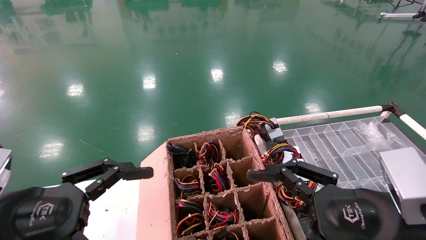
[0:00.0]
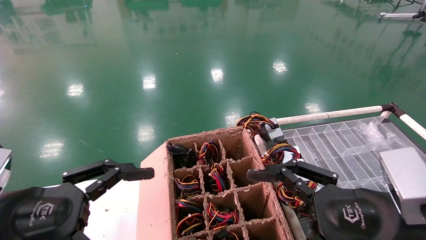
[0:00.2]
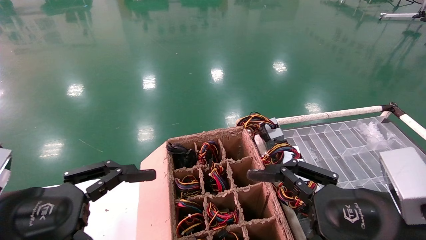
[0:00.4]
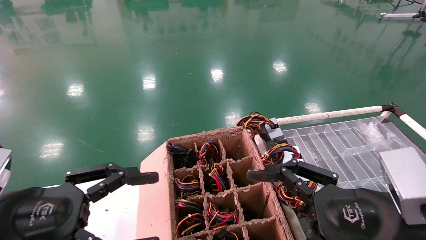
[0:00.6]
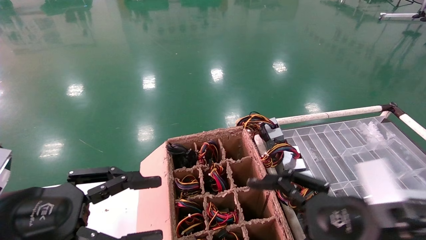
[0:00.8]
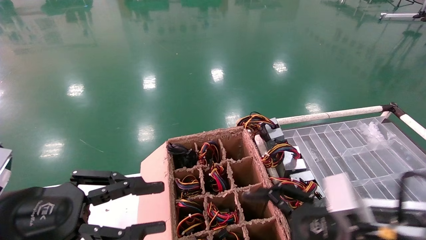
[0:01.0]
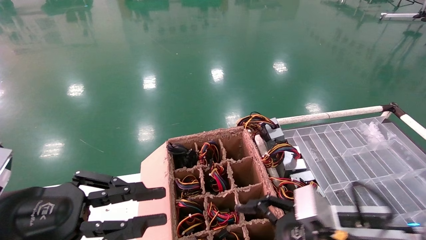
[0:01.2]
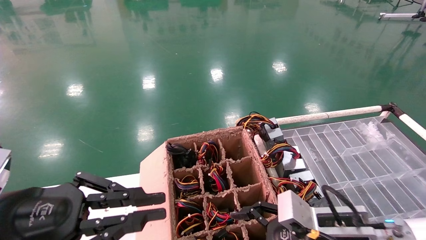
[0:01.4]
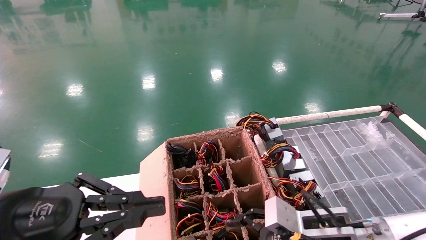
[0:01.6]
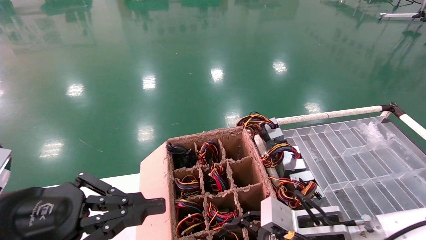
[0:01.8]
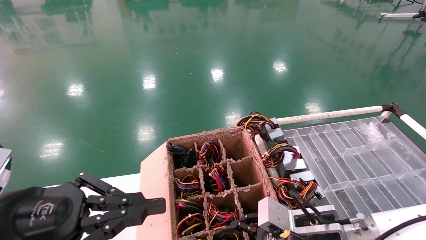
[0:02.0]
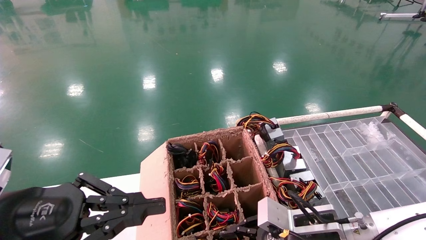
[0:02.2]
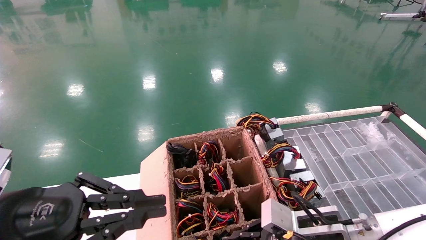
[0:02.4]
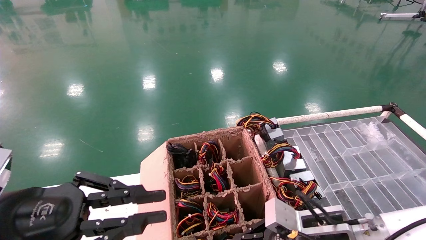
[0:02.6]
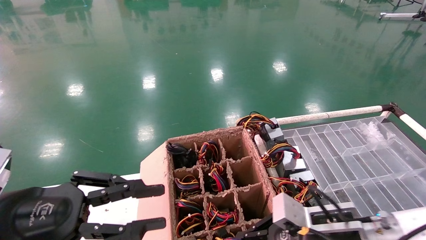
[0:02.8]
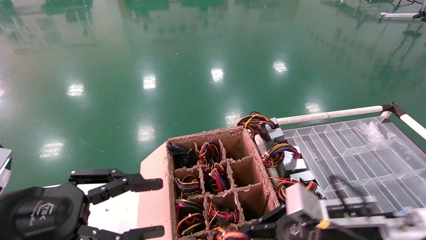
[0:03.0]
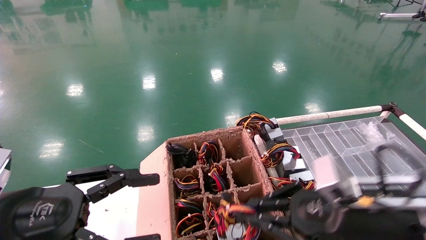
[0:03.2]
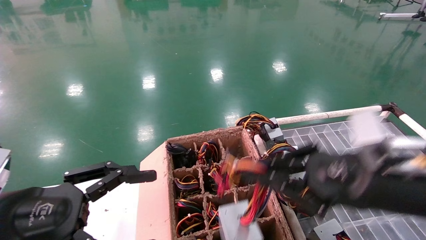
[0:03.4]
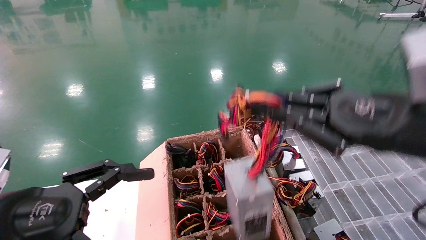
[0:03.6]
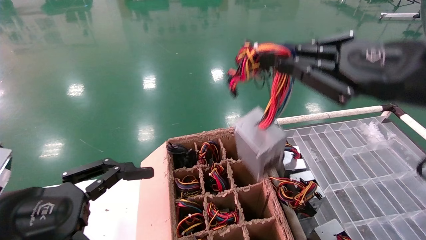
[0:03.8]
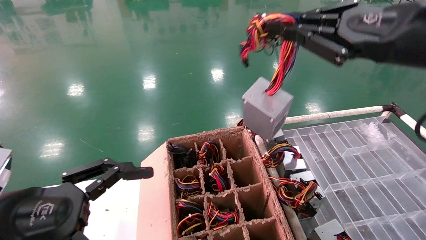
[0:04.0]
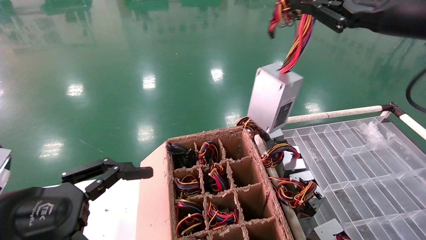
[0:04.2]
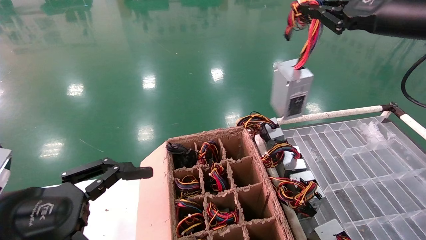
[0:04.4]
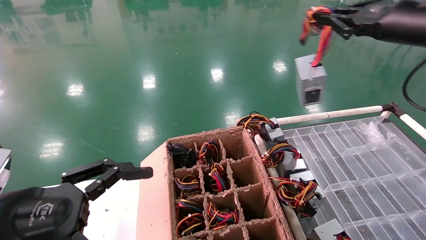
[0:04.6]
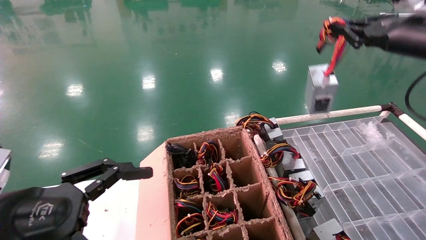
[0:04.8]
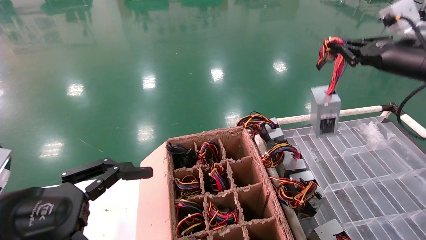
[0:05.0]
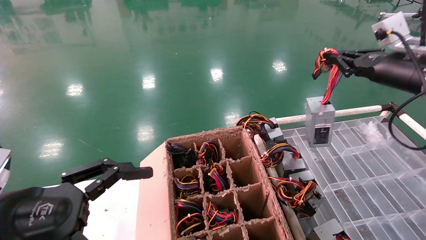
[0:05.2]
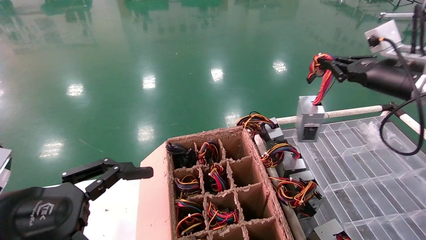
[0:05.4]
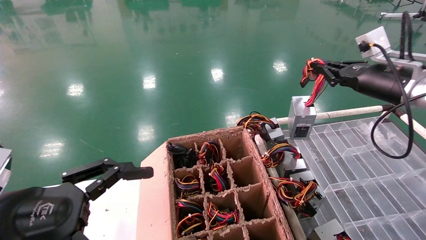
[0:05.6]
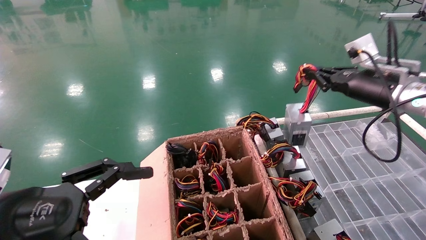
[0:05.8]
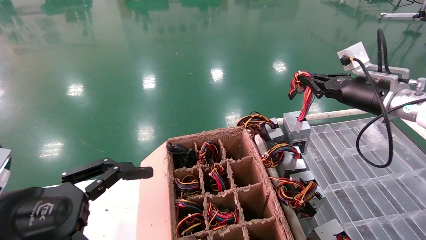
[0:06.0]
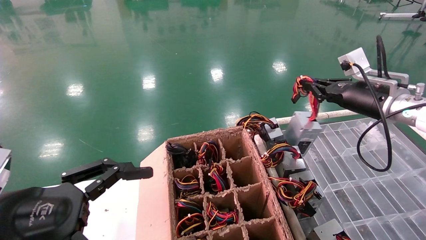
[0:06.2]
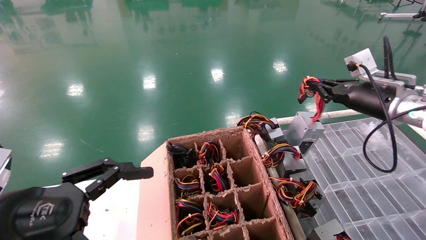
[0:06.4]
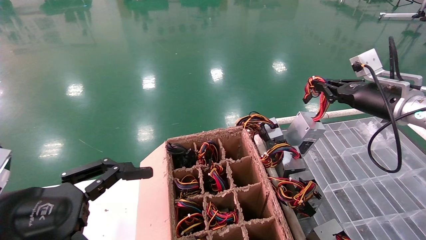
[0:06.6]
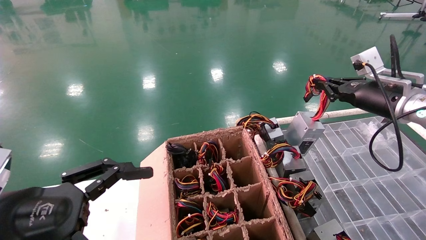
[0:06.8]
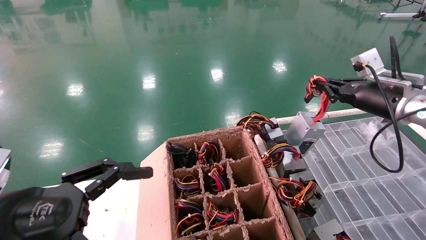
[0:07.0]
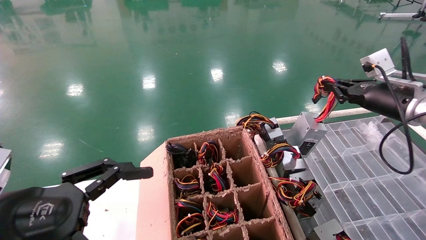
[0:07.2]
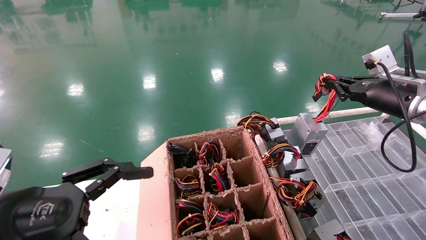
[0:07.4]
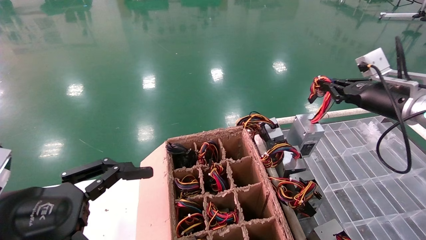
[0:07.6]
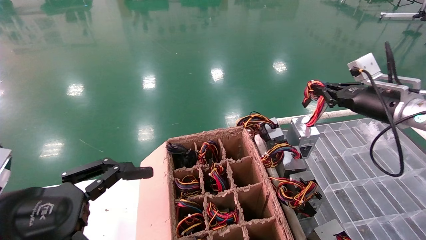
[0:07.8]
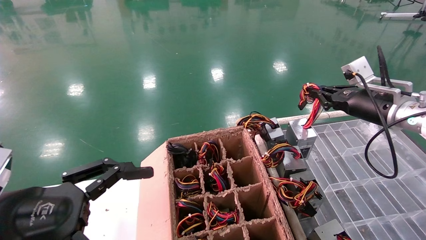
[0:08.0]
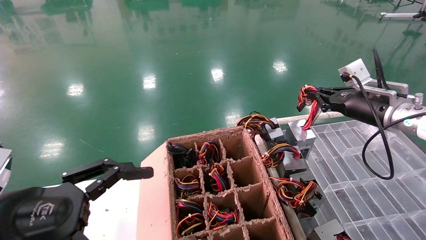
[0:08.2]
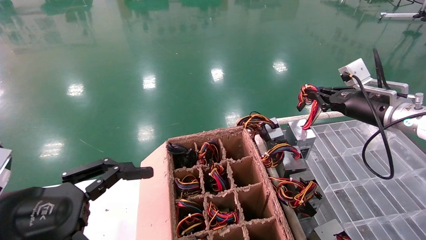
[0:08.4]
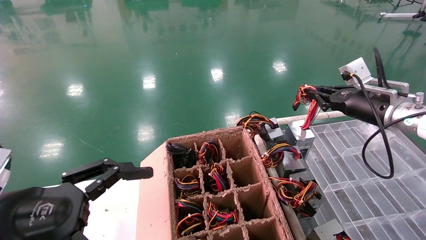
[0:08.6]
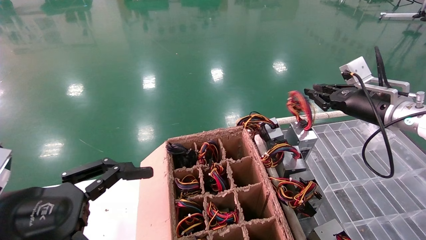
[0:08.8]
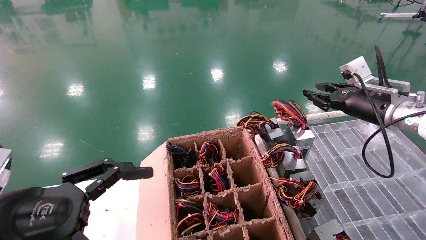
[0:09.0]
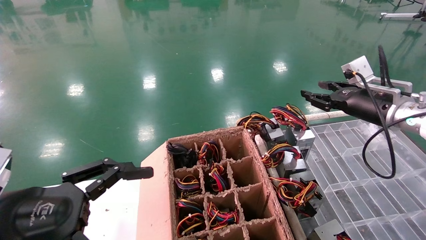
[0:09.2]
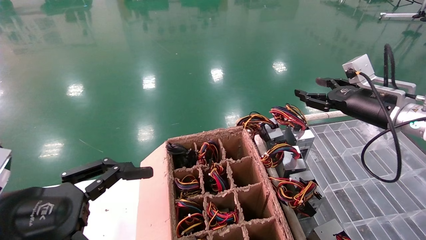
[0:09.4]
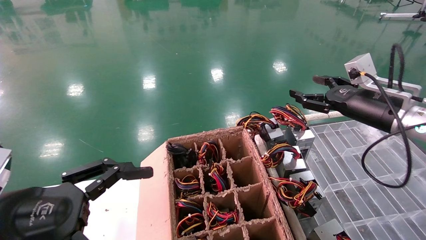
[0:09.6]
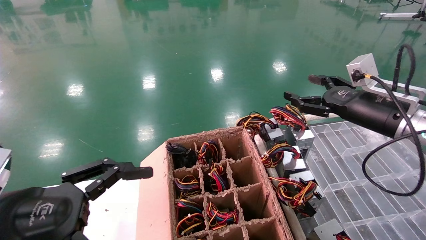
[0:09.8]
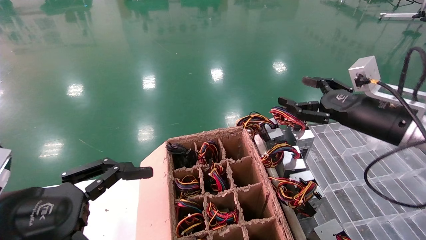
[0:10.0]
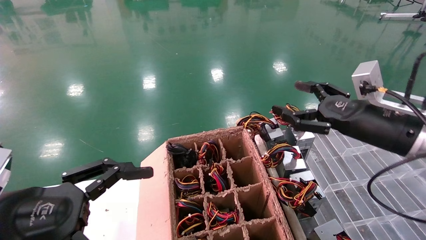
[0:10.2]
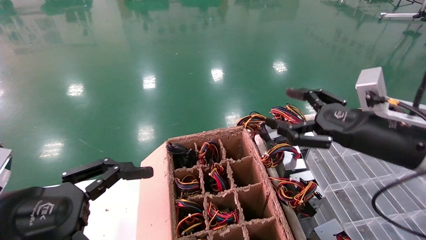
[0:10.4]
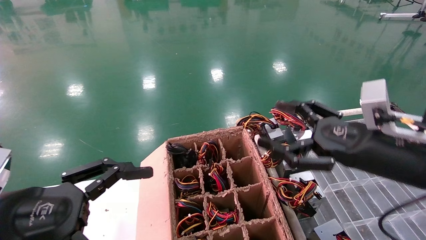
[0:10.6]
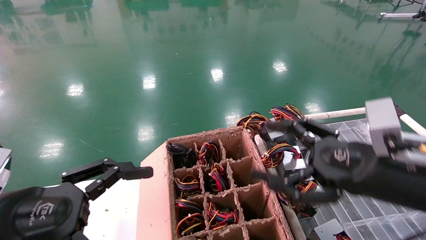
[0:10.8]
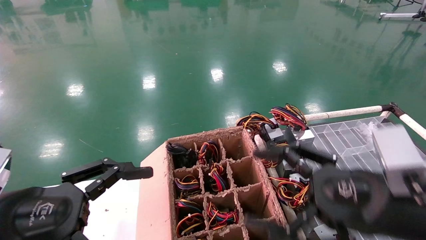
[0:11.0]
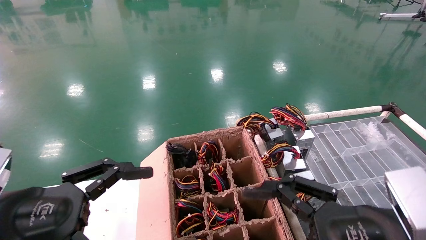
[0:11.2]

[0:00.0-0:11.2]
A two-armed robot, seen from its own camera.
Step, 0:01.8 to 0:02.6: Grab and lift the power supply from the large box.
Step, 0:02.8 to 0:08.6: Place the power supply on the operating table.
0:00.0 to 0:01.6: The right gripper shifts some 15 cm downward and forward. The left gripper closes its fingers.
0:01.6 to 0:03.2: The right gripper goes approximately 10 cm upward, and closes its fingers. Meanwhile the left gripper opens its fingers.
0:03.2 to 0:04.8: The right gripper shifts about 25 cm upward, to the right and forward. Meanwhile the left gripper opens up.
0:04.8 to 0:06.4: The right gripper heads downward and forward, covering approximately 10 cm.
0:06.4 to 0:08.0: The grippers move only a little.
0:08.0 to 0:09.6: The right gripper opens its fingers.
0:09.6 to 0:11.2: The right gripper heads backward and to the left, covering approximately 25 cm.
